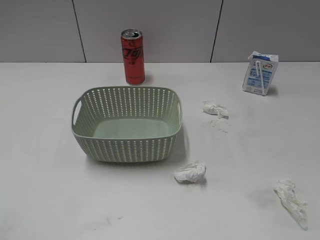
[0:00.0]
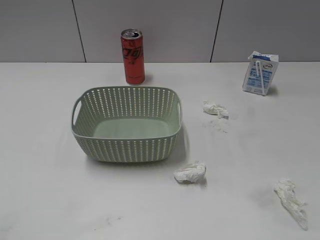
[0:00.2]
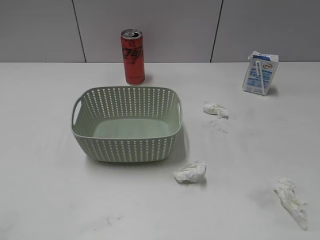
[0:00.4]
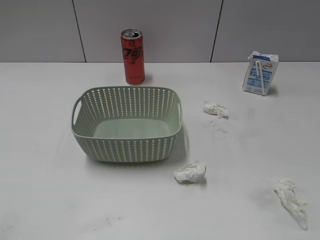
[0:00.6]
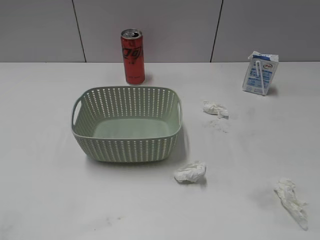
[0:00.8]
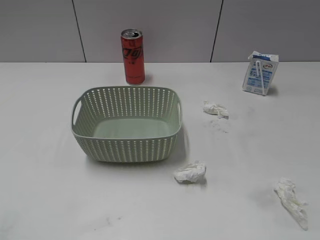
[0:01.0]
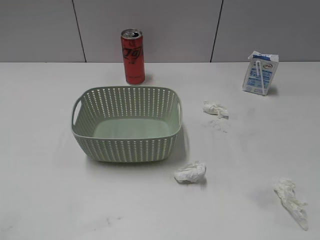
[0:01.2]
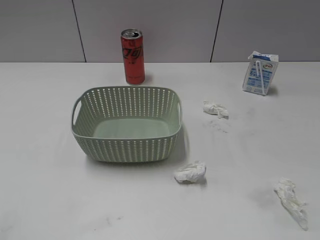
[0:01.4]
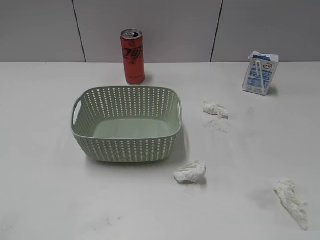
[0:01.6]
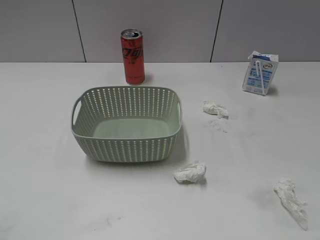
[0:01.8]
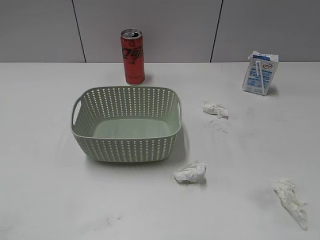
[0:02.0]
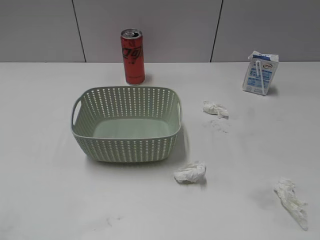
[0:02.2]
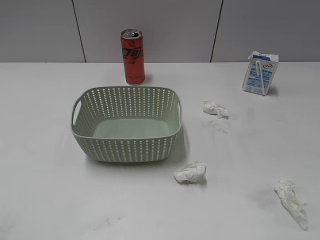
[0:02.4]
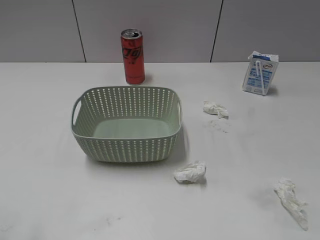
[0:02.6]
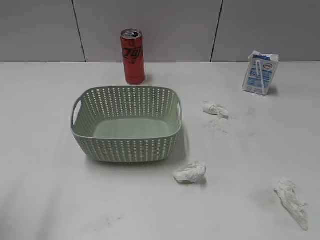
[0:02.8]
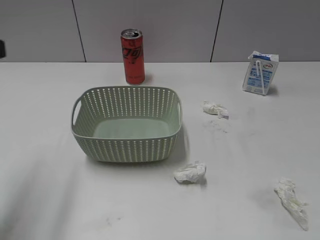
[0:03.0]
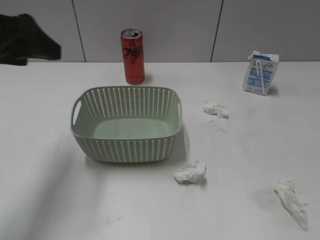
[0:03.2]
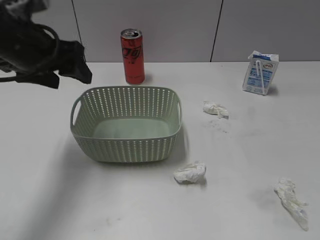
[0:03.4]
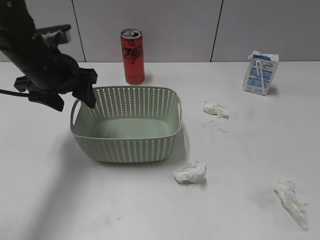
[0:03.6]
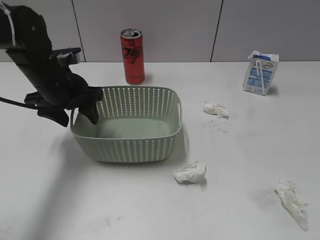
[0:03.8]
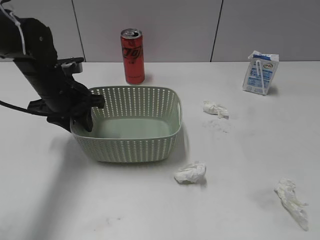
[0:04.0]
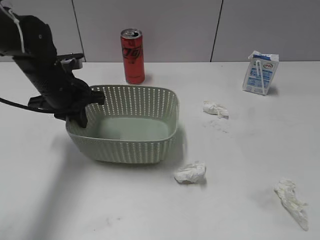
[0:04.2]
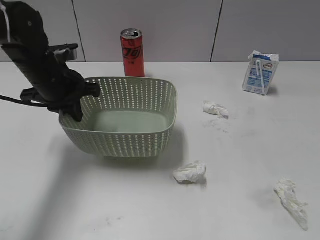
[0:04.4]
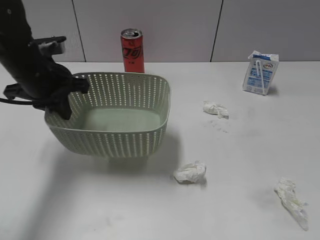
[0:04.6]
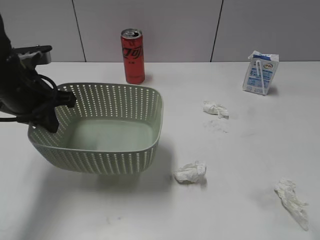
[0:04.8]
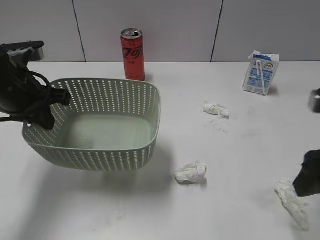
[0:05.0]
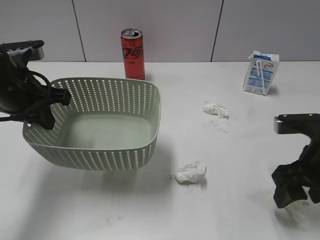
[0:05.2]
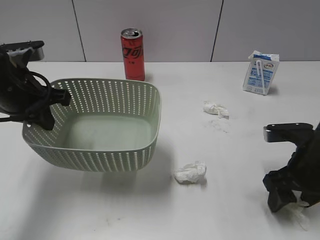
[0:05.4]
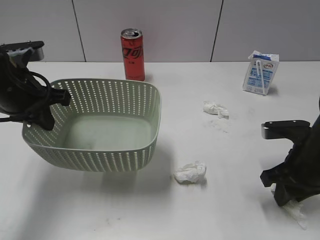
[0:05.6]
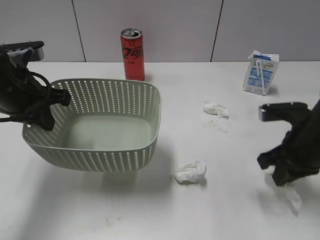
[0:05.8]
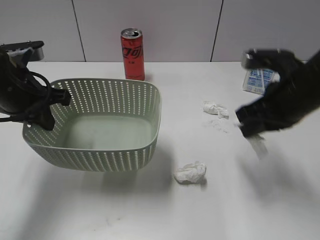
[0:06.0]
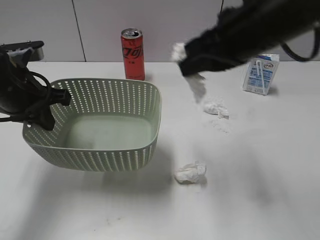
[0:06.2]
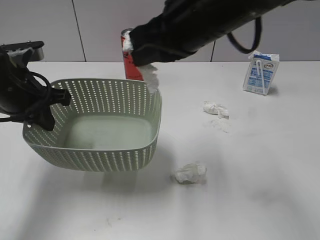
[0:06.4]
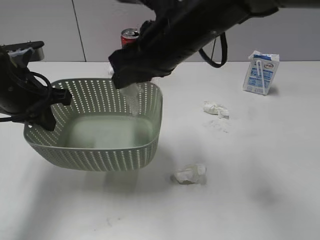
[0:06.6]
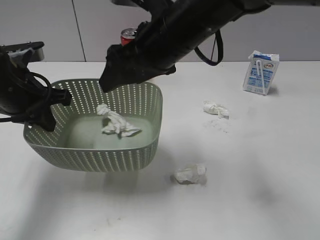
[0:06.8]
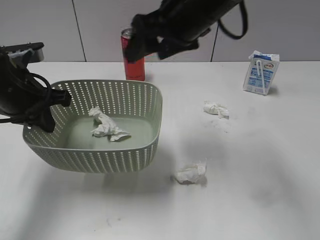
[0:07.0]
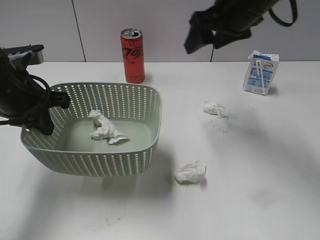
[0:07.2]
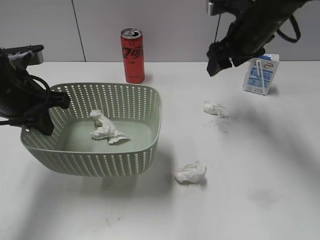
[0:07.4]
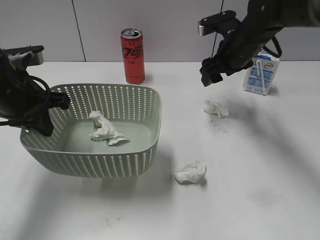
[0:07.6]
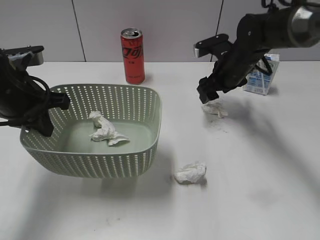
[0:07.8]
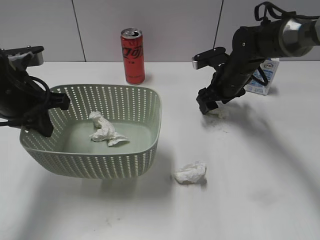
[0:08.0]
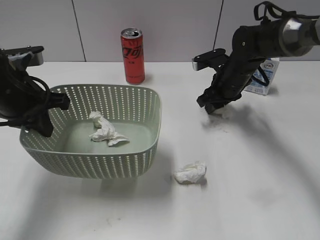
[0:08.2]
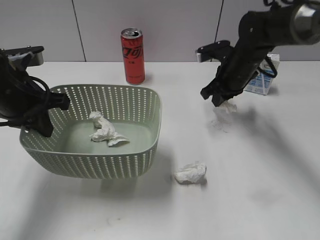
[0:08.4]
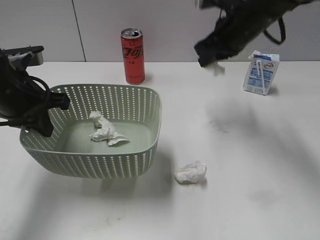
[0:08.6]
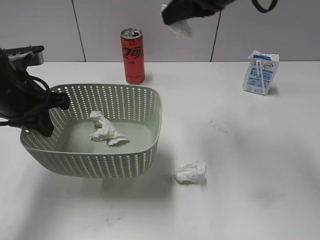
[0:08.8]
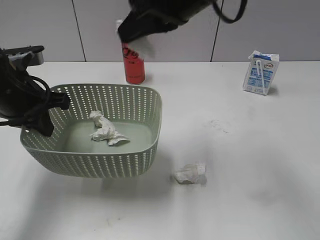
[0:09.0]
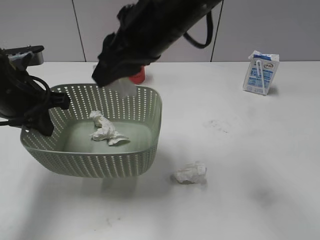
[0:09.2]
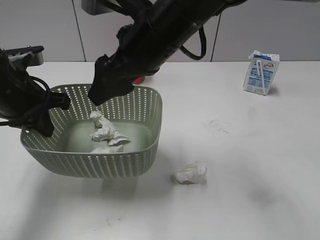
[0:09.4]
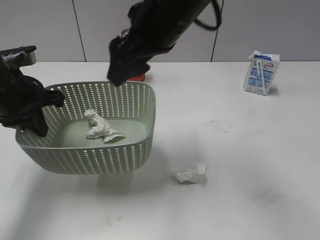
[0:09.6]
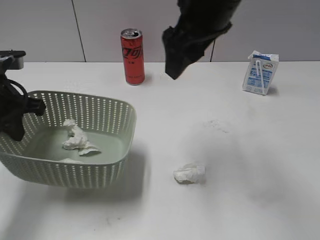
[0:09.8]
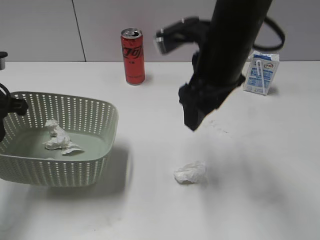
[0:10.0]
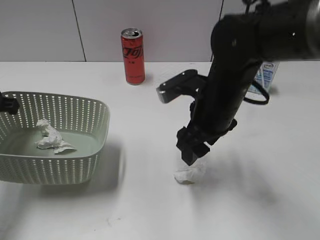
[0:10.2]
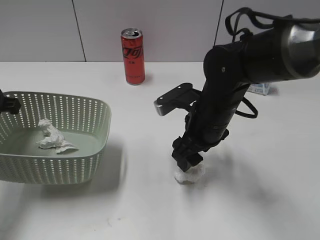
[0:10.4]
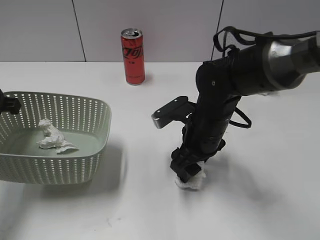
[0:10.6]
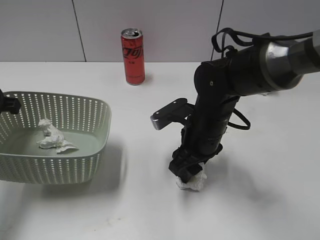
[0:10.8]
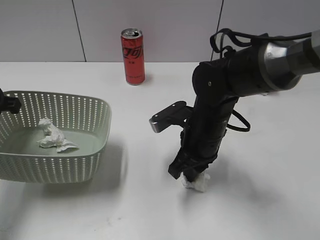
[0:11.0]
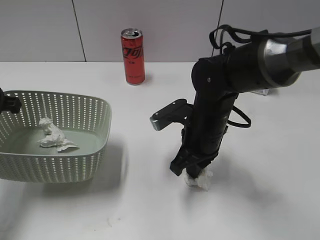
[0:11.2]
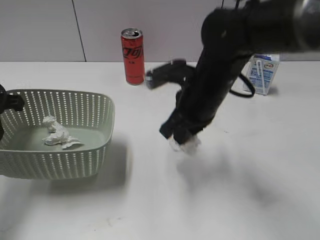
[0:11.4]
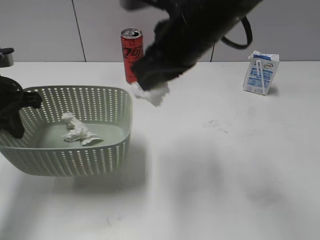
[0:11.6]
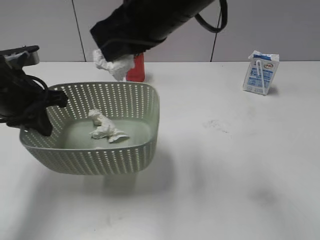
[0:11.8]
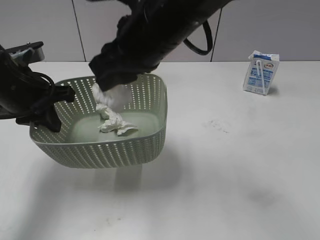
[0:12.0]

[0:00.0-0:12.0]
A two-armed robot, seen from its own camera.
Step, 0:02.4 to 0:04.4: Grasp the basket with left gripper.
Step, 0:04.6 to 0:05.6: Grasp the waste paper with right gripper.
Step, 0:05.8 to 0:06.6: Place the waste paper in the basket with right gripper.
Step, 0:06.8 to 0:08.4: Grasp the waste paper with right gripper.
Step, 0:08.6 to 0:09.4: Place the waste paper in the basket with right gripper.
Step, 0:09.6 to 0:11.2: Grasp the waste paper with right gripper.
0:01.6 to 0:03.0: The left gripper shifts roughly 20 cm forward, and opens up.
0:03.0 to 0:04.4: The left gripper goes approximately 25 cm forward, downward and to the right, and closes.
0:04.4 to 0:06.0: The right gripper moves forward and to the left, roughly 30 cm, and closes; the left gripper goes roughly 5 cm backward.
0:06.0 to 0:07.6: The right gripper shifts some 15 cm forward, reaches about 15 cm to the left, then returns, and opens up.
0:07.6 to 0:09.0: The right gripper travels upward, backward and to the left by some 20 cm, and closes its fingers.
0:09.0 to 0:10.4: The right gripper moves up and down over some 20 cm, changing direction 2 times, and opens up; the left gripper shifts about 5 cm to the left.
0:10.4 to 0:12.0: The left gripper moves to the right, approximately 10 cm, while the right gripper goes some 15 cm upward and to the left, and closes.

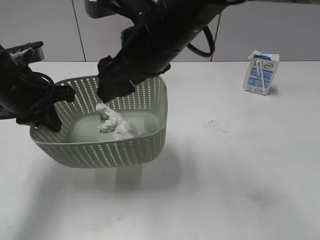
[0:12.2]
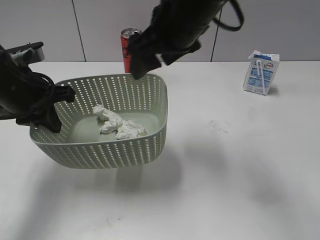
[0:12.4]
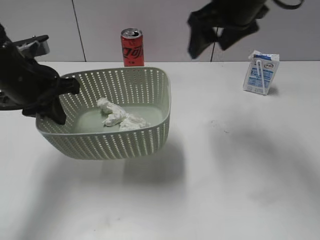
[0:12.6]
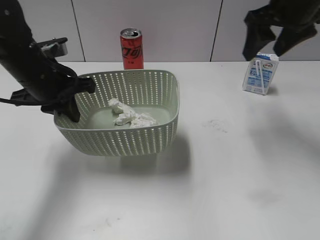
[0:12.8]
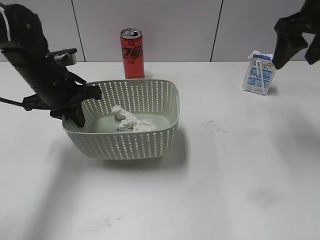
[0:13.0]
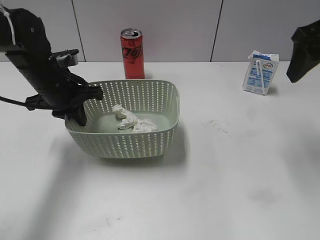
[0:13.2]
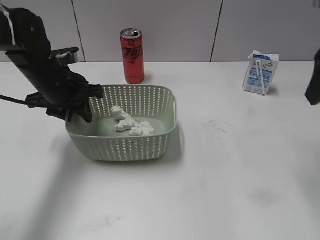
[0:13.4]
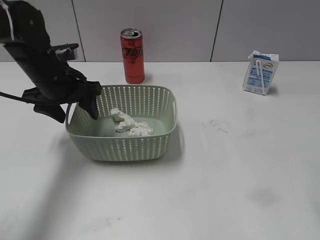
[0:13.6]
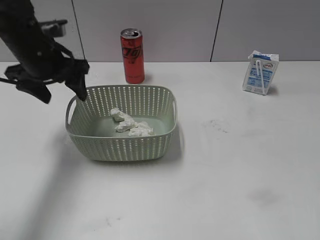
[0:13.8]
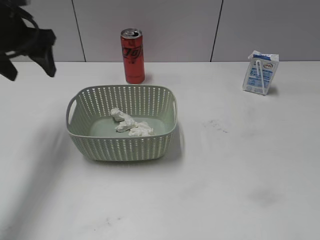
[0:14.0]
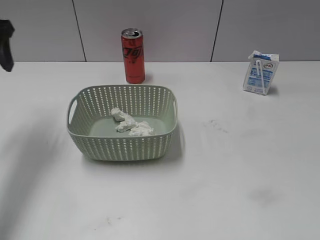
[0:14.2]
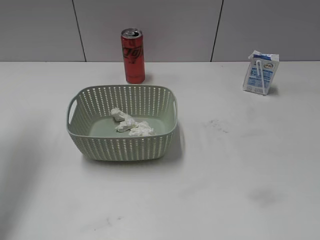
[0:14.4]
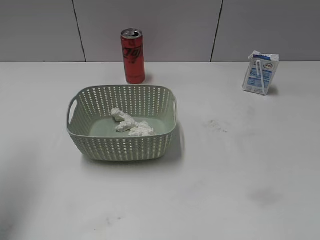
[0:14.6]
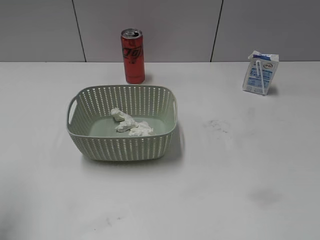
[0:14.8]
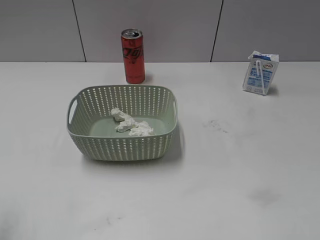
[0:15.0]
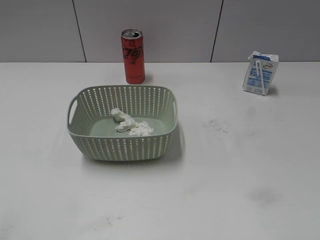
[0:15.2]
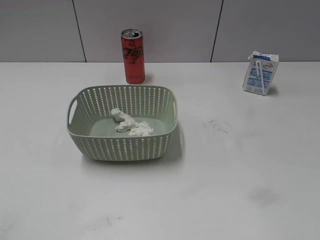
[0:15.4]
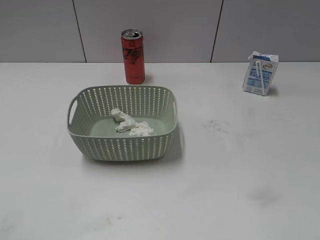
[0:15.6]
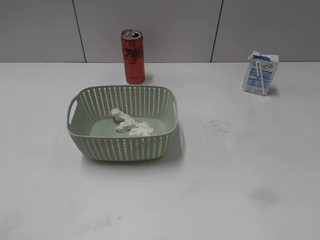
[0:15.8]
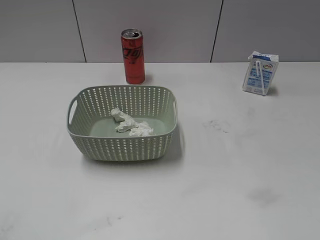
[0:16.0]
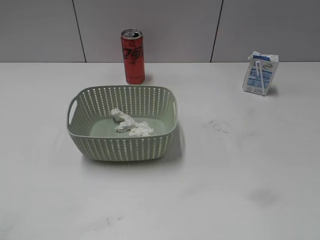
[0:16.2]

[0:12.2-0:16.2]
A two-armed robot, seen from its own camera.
Step, 0:12.6 to 0:13.6: Place the basket on the table with left gripper.
0:12.2 to 0:13.6: The left gripper shifts some 5 cm forward, and opens up. The right gripper travels to the right by about 25 cm.
0:13.6 to 0:14.8: The left gripper heads upward, backward and to the left, covering roughly 25 cm.
0:14.8 to 0:16.2: The left gripper travels backward by approximately 20 cm.

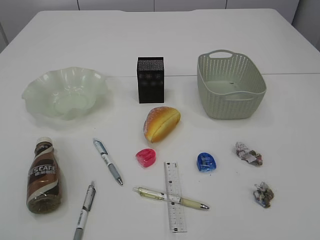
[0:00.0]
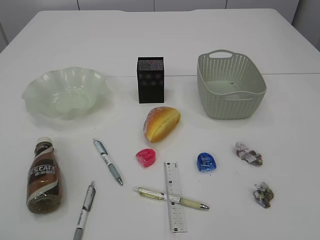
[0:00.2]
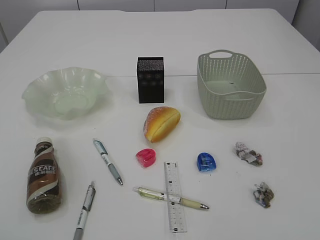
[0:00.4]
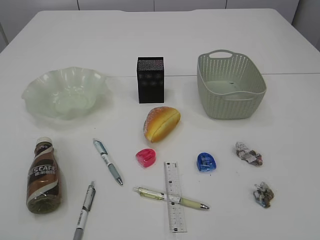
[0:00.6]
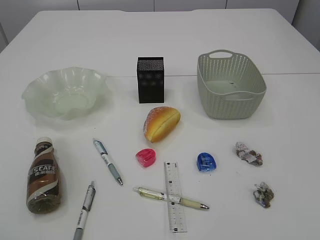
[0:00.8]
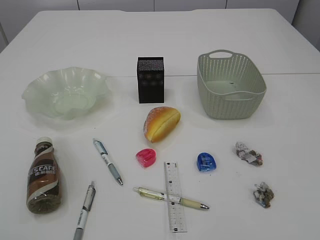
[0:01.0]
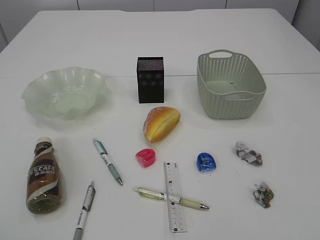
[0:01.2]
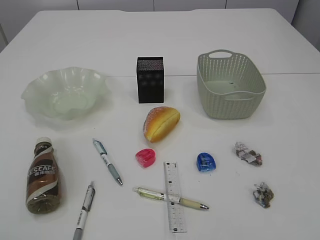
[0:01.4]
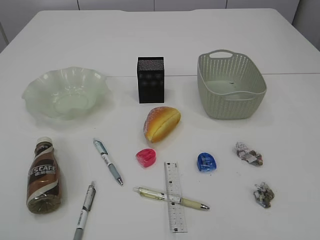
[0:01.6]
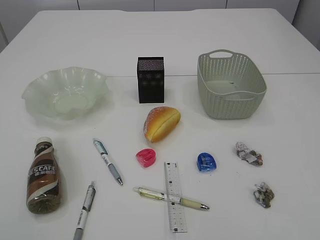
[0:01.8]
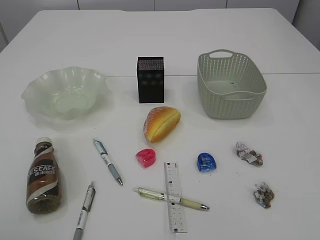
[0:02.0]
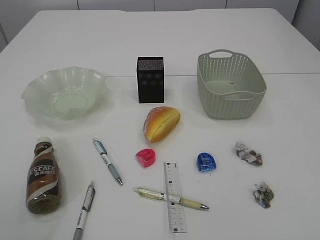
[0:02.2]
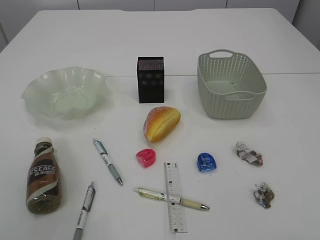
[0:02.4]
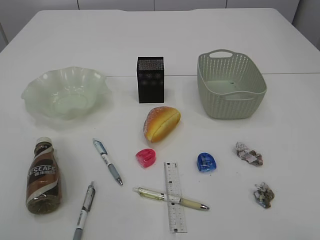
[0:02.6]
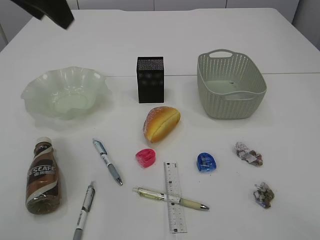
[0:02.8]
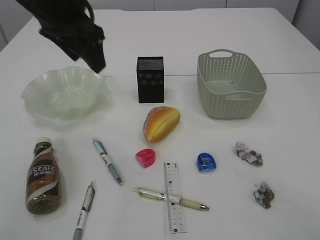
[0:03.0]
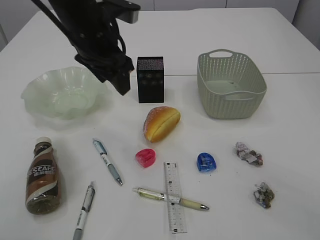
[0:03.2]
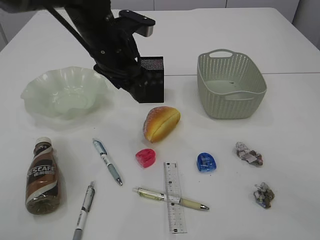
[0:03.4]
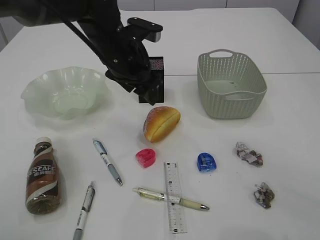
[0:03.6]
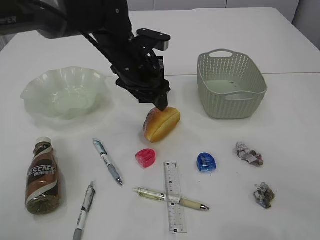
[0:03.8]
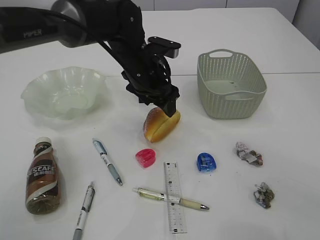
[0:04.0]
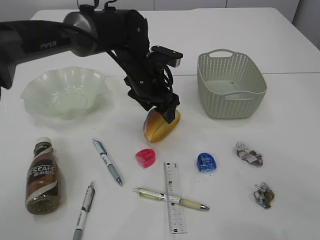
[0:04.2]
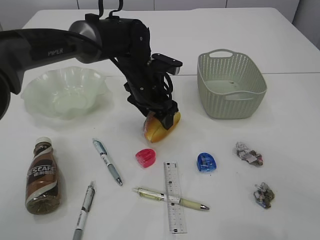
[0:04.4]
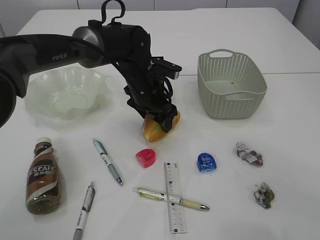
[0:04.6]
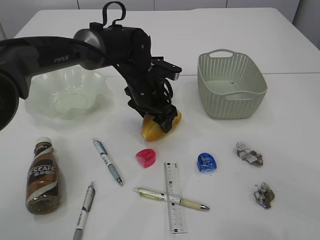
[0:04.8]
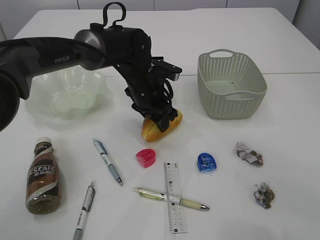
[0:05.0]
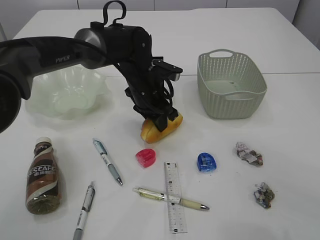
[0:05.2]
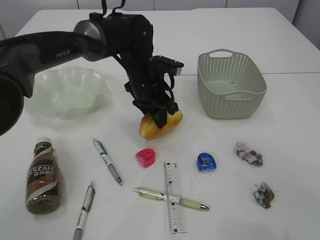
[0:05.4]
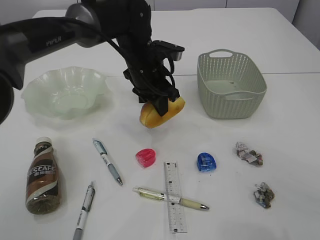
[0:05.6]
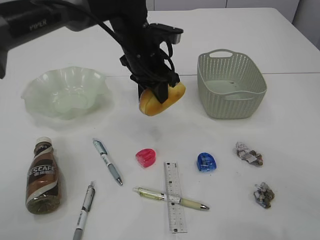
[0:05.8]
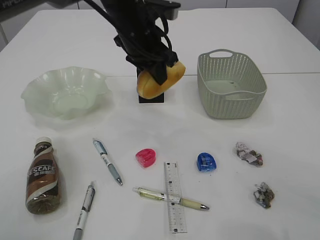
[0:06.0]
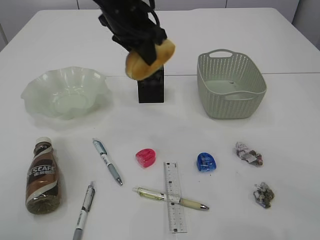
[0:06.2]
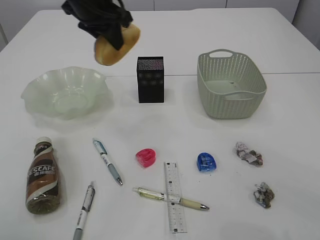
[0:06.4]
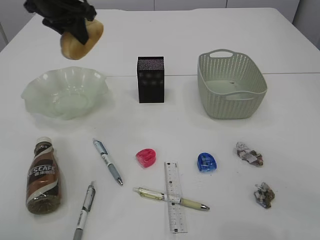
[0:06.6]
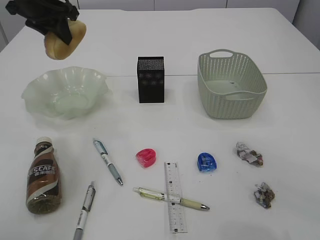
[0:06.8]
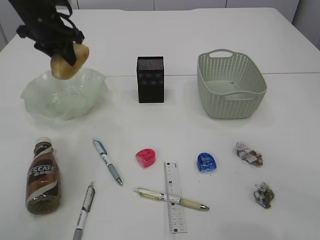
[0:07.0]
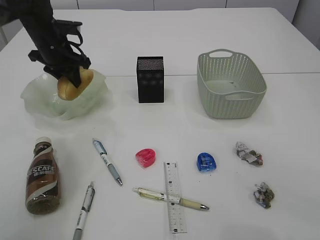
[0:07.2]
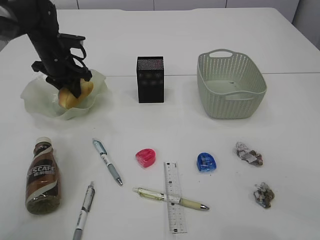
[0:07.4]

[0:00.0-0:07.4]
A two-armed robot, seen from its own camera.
0:01.4 to 0:03.0: The left gripper shifts roughly 35 cm forward and to the right.
0:03.0 to 0:04.4: The right gripper shifts approximately 10 cm forward. Meanwhile the left gripper shifts roughly 20 cm downward and to the right.
0:04.4 to 0:06.0: The left gripper moves upward, roughly 10 cm, and closes up.
0:06.0 to 0:07.4: The left gripper goes approximately 25 cm to the left, forward and downward.
